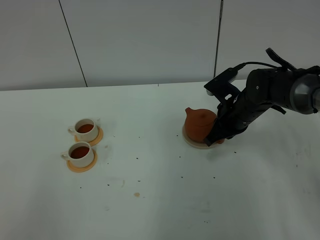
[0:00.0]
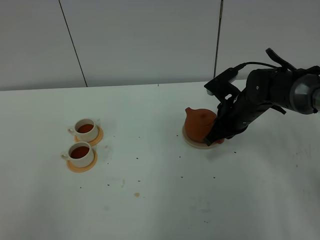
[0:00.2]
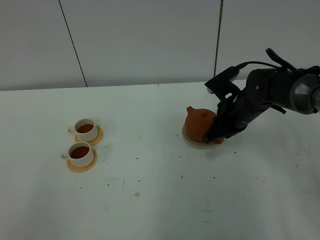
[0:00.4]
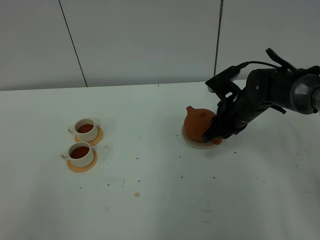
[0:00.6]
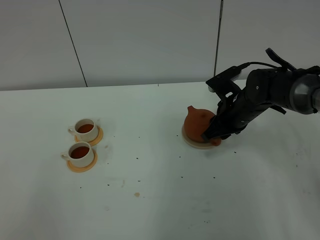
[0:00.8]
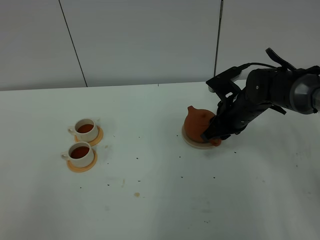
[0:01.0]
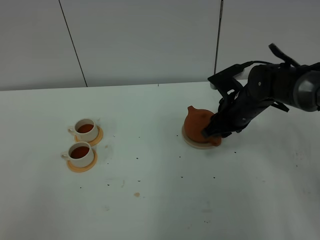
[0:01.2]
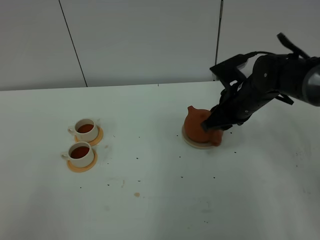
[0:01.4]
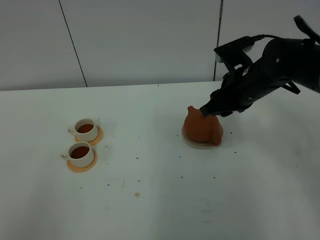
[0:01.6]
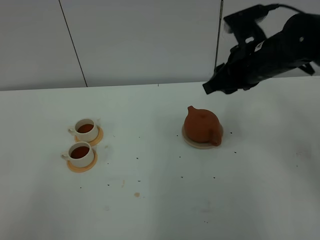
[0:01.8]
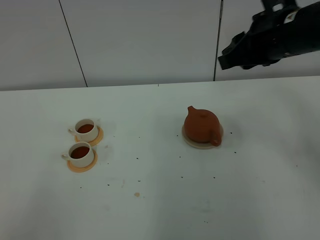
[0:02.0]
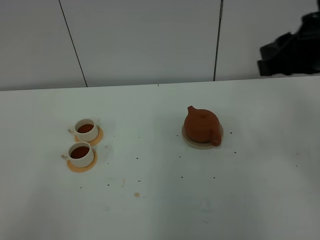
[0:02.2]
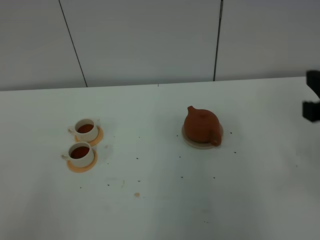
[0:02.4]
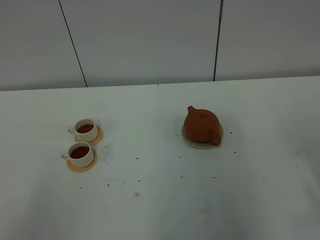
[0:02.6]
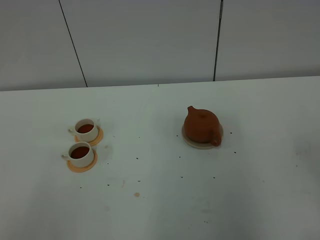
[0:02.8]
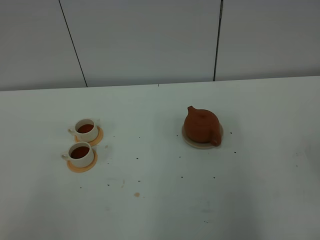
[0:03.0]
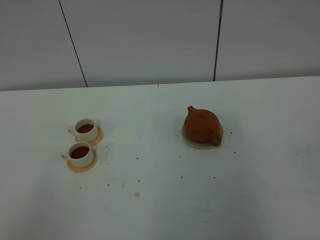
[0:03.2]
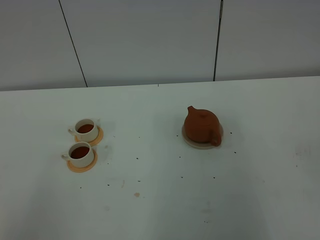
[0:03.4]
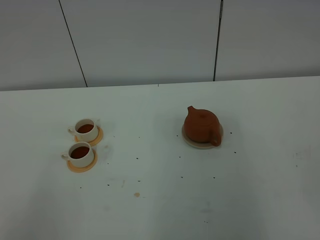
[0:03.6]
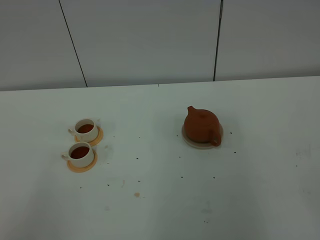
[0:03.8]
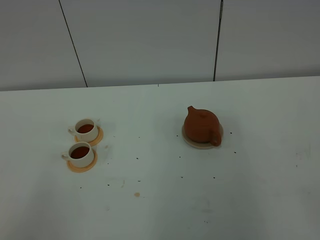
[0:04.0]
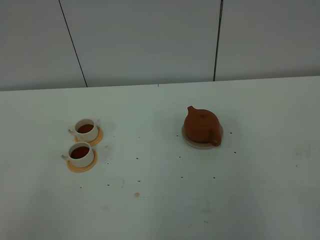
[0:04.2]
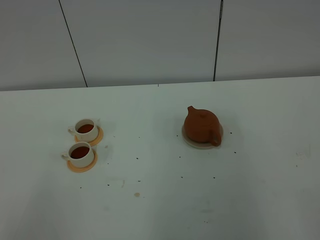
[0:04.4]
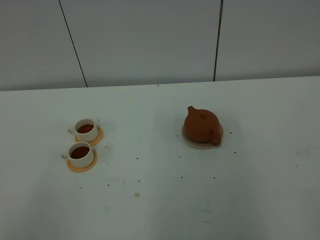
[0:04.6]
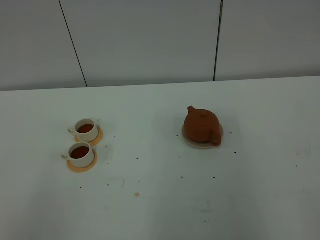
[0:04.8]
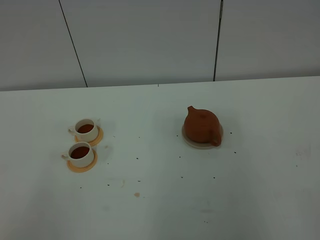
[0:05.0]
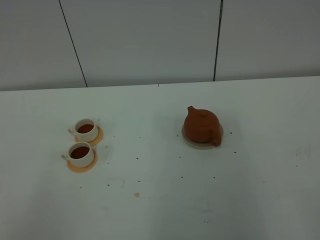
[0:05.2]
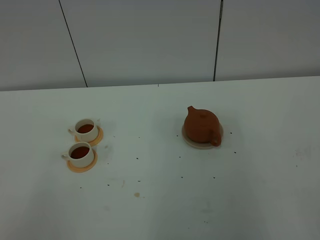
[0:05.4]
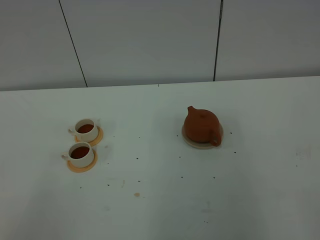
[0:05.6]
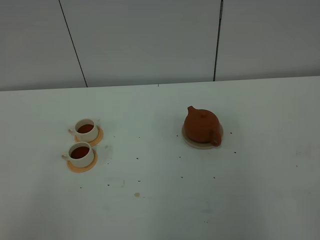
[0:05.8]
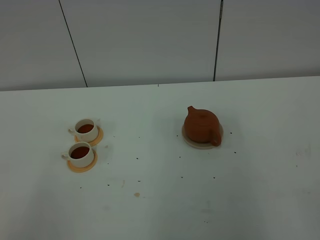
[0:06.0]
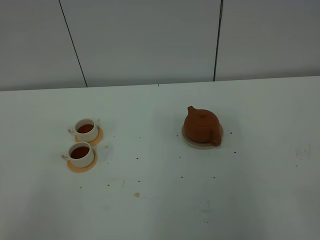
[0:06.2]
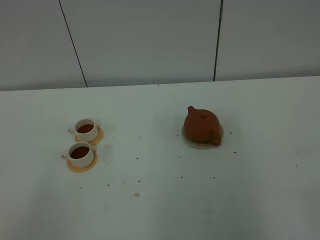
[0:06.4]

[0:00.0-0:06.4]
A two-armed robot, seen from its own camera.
Task of the whole recording: grasp the brown teapot and pour the tea into the two white teacups one by one, put the brown teapot back in its original place.
0:00.0 to 0:01.6: The right gripper heads upward, covering roughly 10 cm, and opens up.
0:01.6 to 0:03.2: The right gripper goes approximately 35 cm backward and to the right, and closes.
